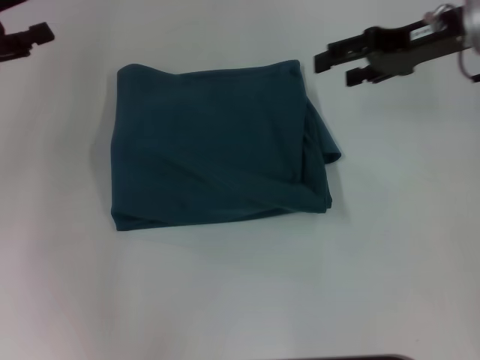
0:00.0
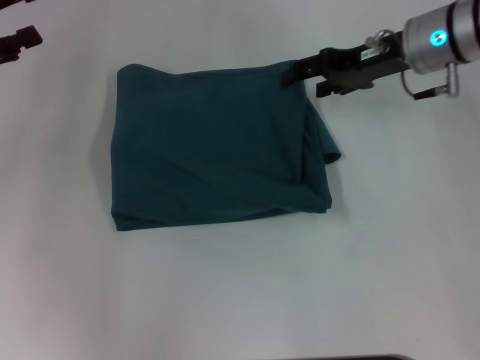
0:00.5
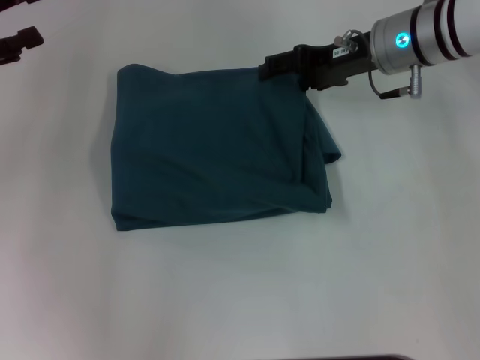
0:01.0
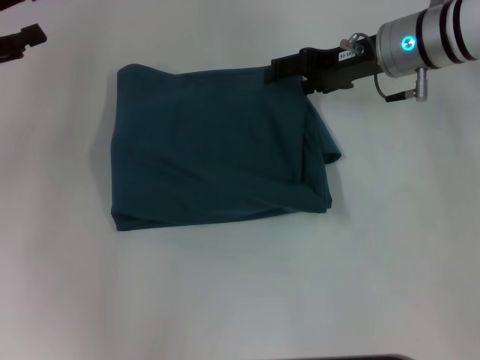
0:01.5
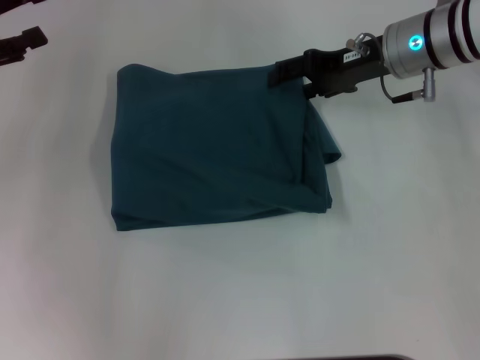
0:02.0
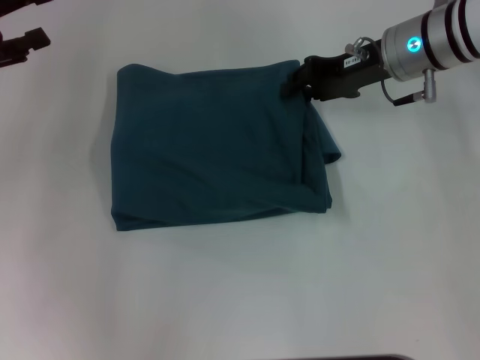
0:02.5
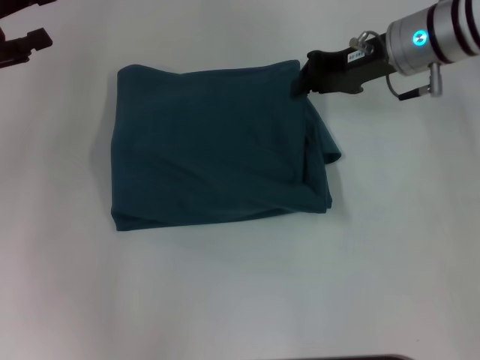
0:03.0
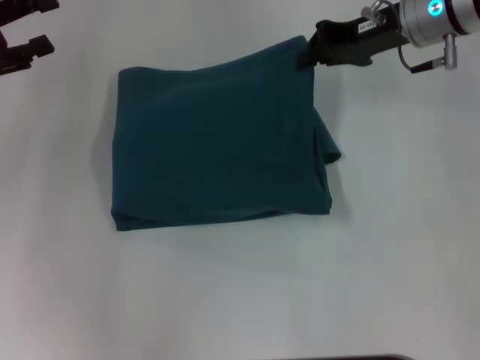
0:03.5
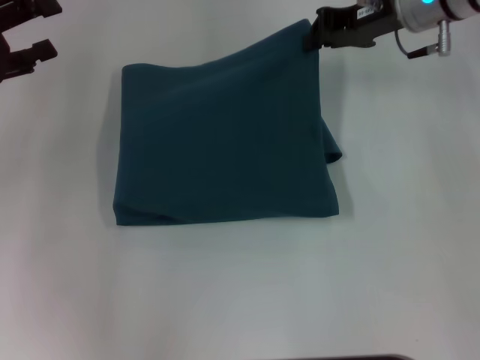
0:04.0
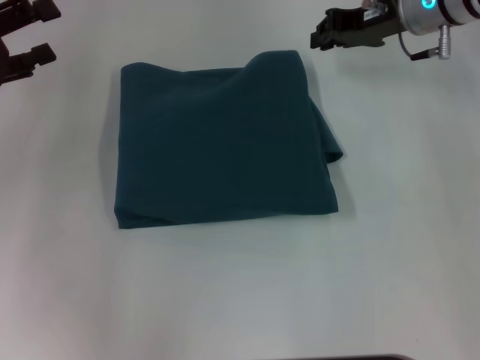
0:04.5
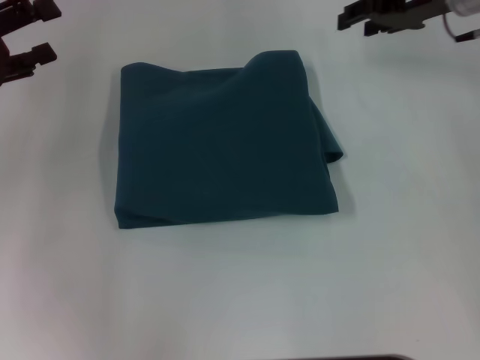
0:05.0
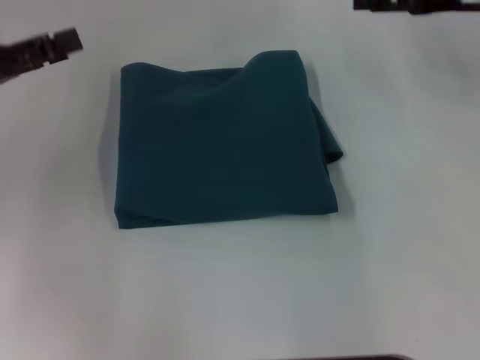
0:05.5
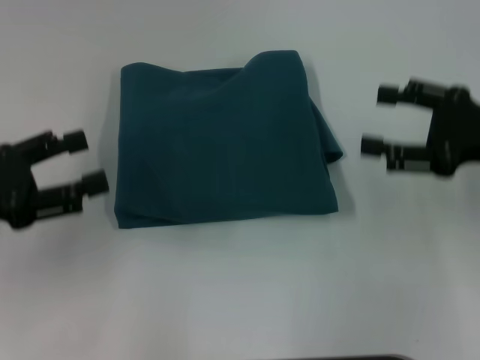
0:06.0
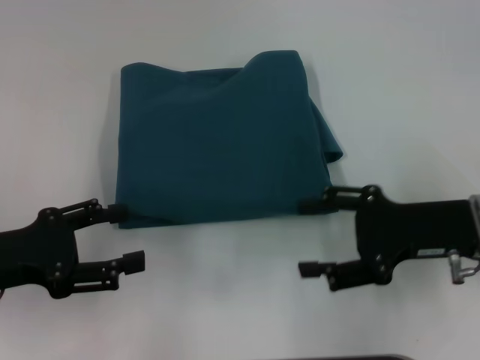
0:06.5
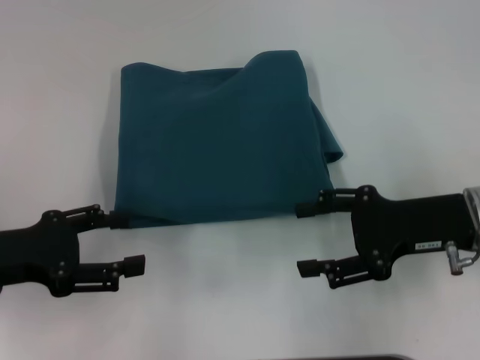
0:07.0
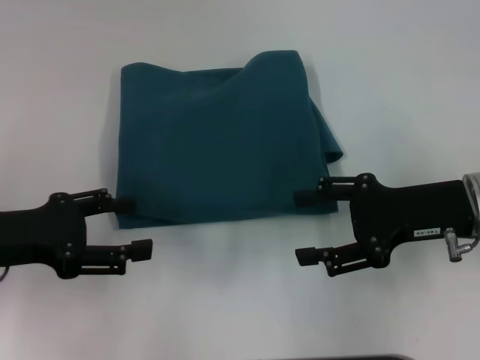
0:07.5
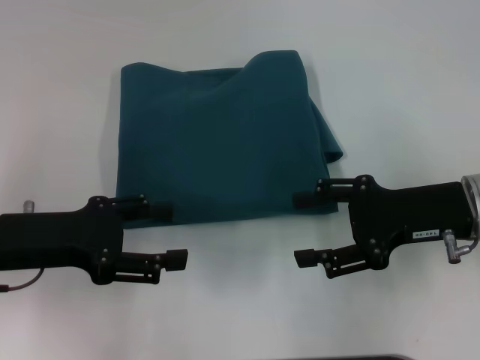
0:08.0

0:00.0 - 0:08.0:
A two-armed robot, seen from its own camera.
0:00.0 - 0:02.0: The right gripper heads to the left, covering about 5 cm.
0:02.0 - 0:04.0: The right gripper closes.
0:04.0 - 0:06.0: The left gripper shifts roughly 10 cm backward. Meanwhile the right gripper goes approximately 20 cm backward and to the right, and opens up.
0:06.0 - 0:08.0: The left gripper travels to the right by some 5 cm; the right gripper is displaced to the left by roughly 5 cm.

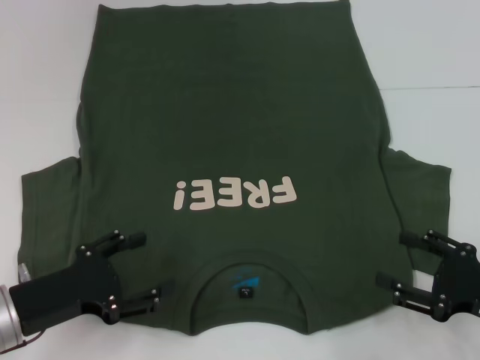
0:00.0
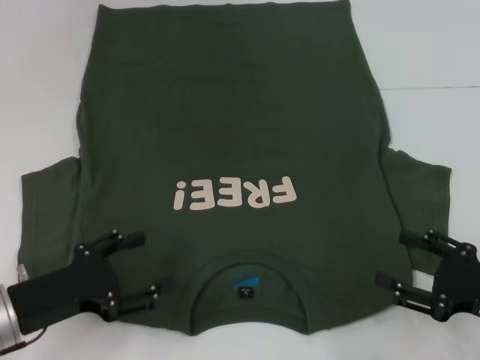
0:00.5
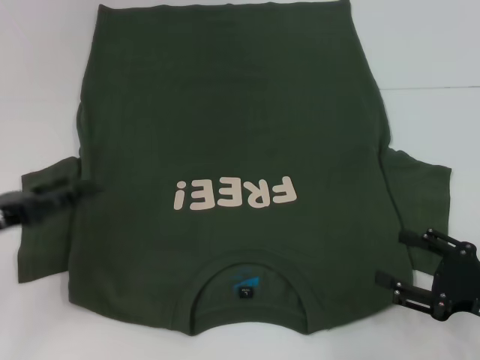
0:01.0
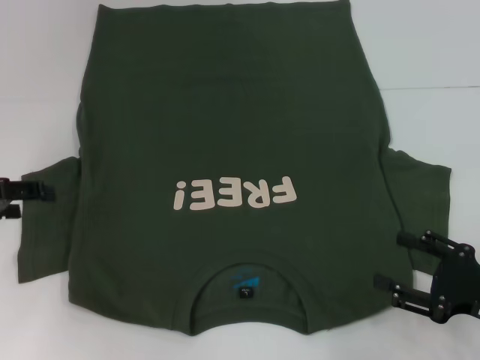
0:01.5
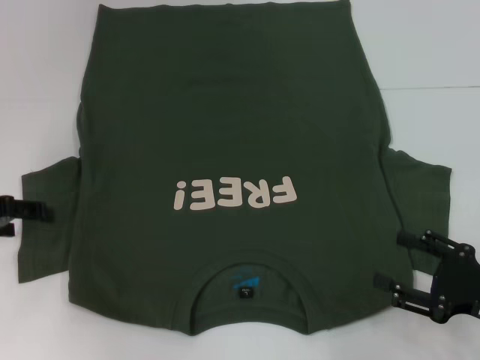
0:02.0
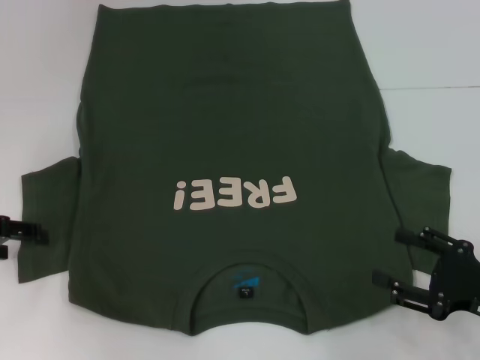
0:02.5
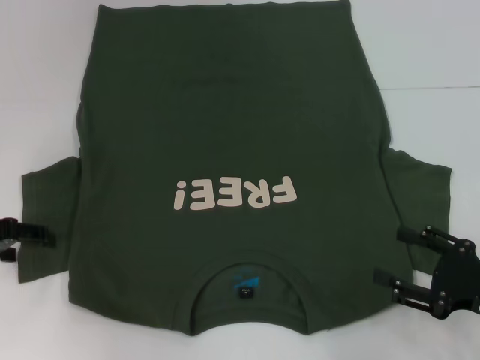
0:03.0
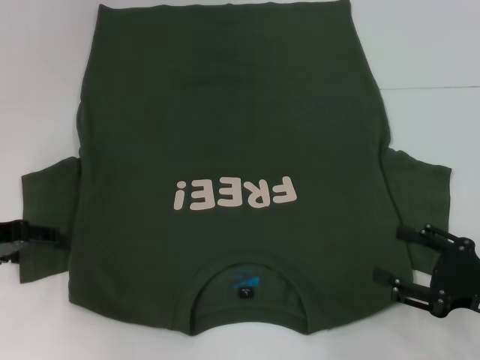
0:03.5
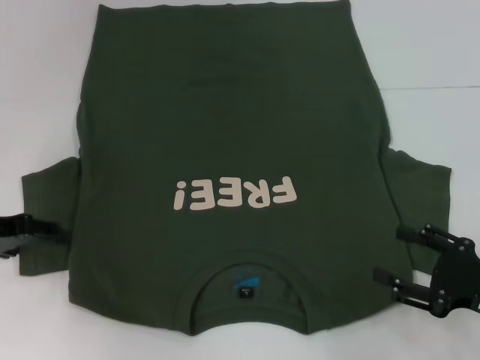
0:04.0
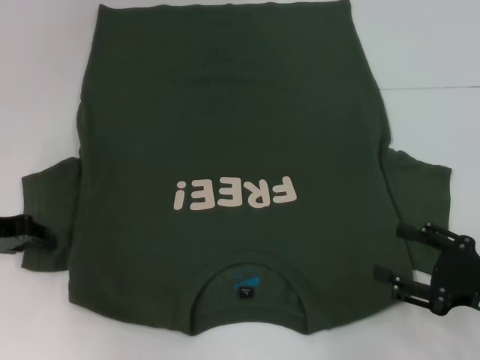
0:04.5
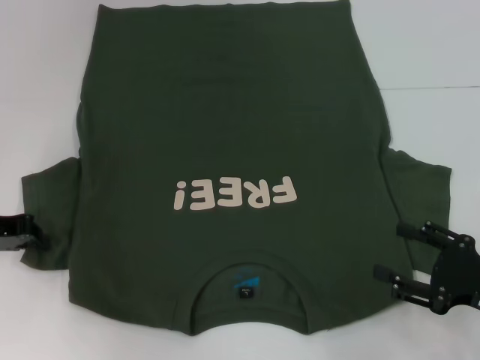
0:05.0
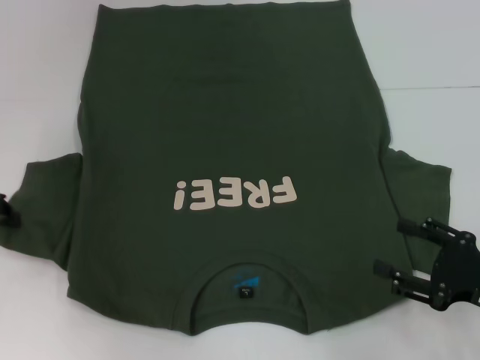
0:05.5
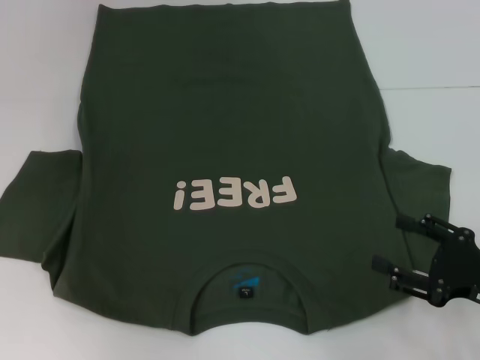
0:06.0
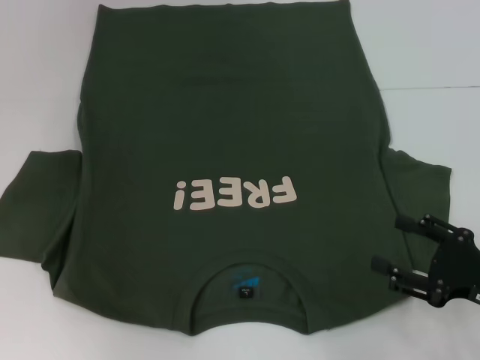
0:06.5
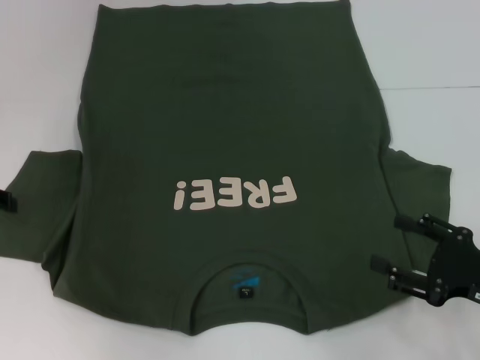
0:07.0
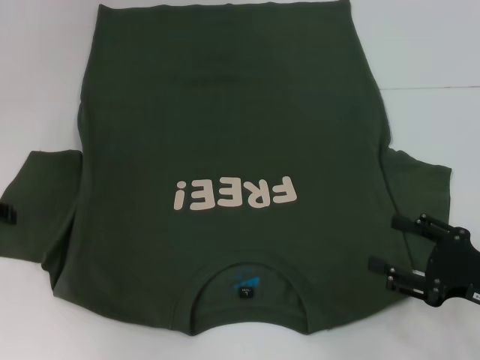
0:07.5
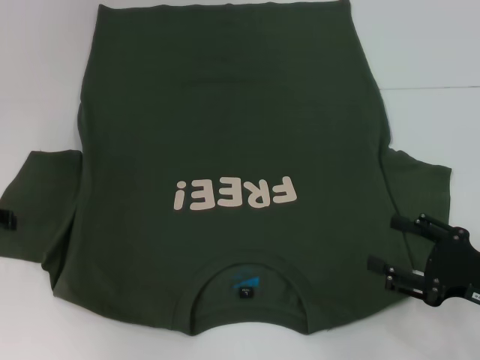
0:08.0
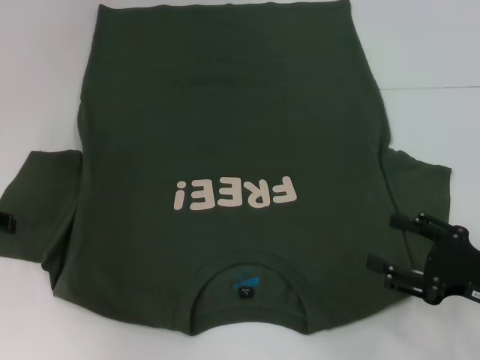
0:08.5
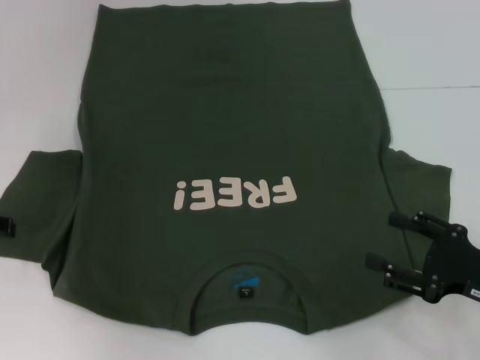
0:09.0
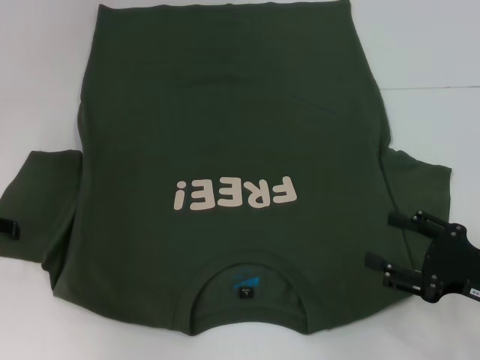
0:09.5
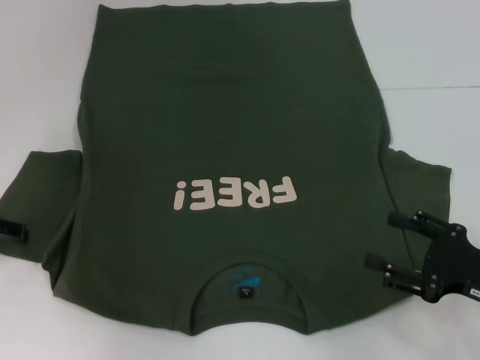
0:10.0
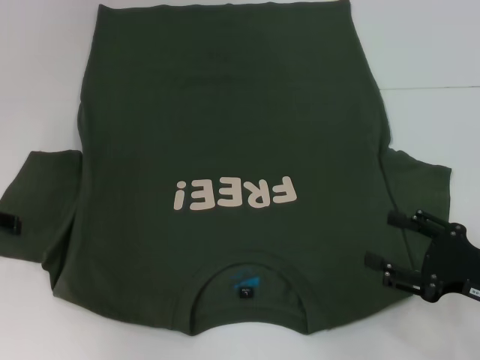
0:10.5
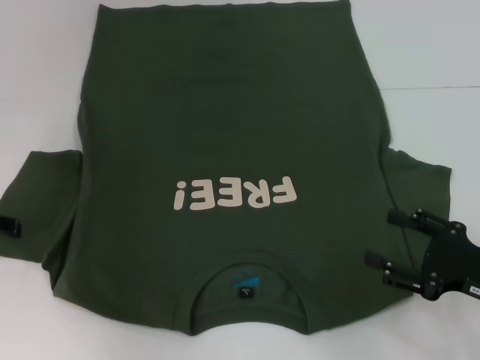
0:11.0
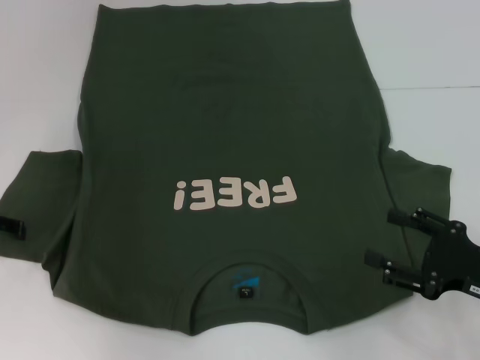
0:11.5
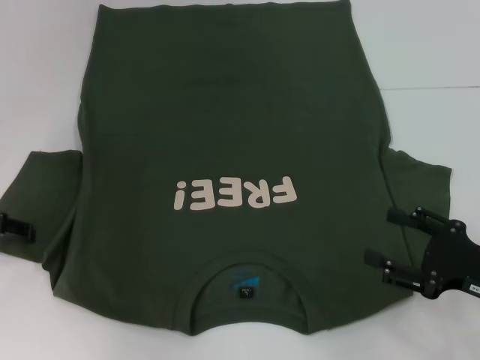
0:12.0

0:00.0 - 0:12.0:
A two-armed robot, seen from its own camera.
0:00.0 - 0:02.0: The left gripper heads forward, to the left and upward, covering some 15 cm.
0:02.0 - 0:04.0: The grippers move only a little.
0:04.0 - 0:06.0: The left gripper shifts by some 5 cm, and closes.
0:10.0 - 0:12.0: The two grippers keep their place.

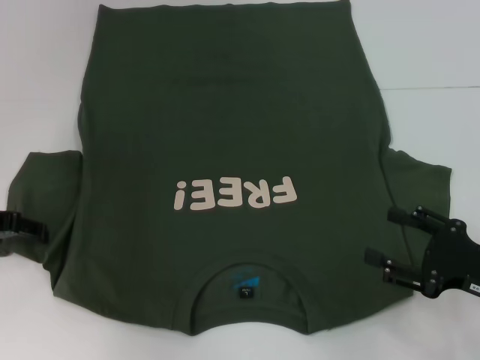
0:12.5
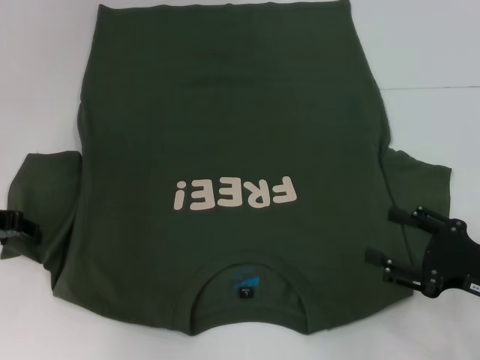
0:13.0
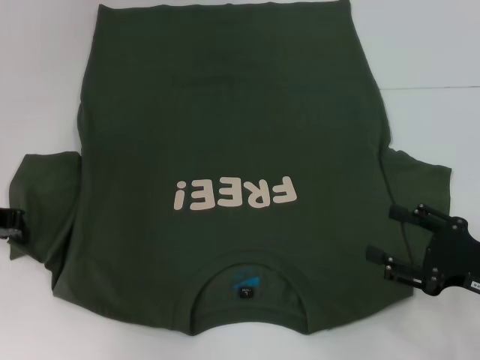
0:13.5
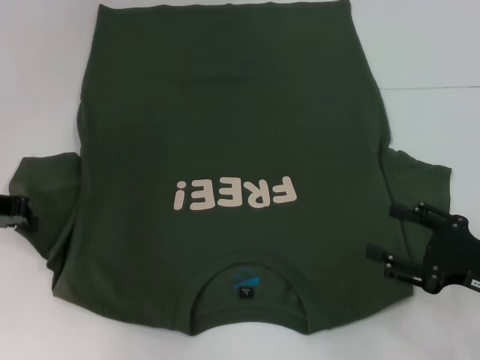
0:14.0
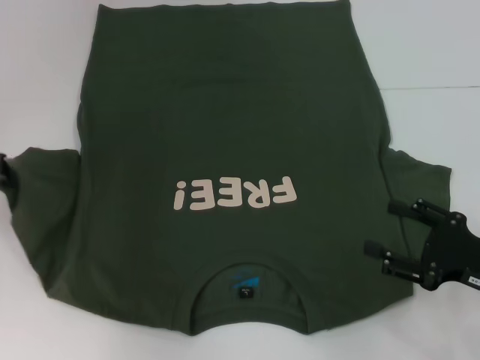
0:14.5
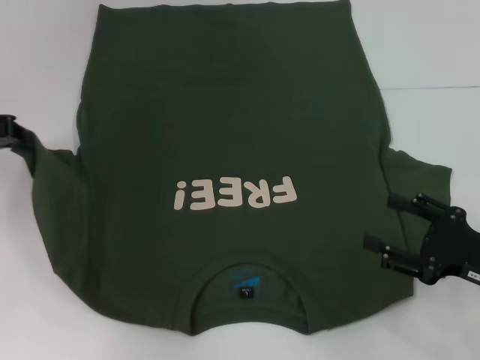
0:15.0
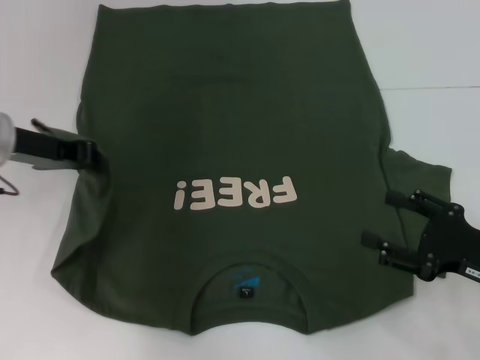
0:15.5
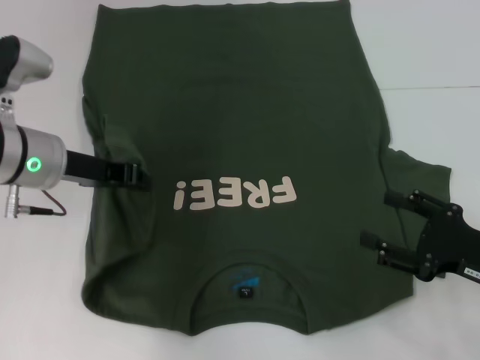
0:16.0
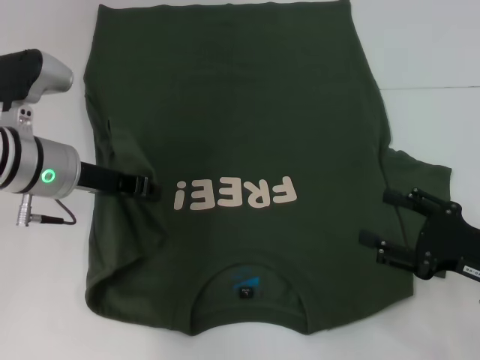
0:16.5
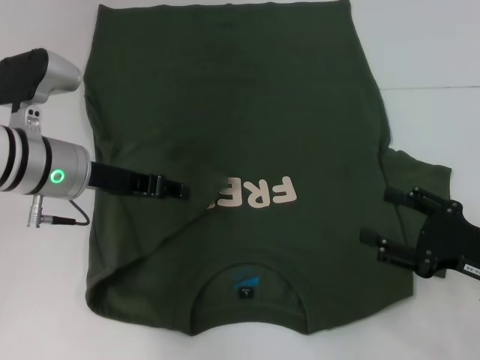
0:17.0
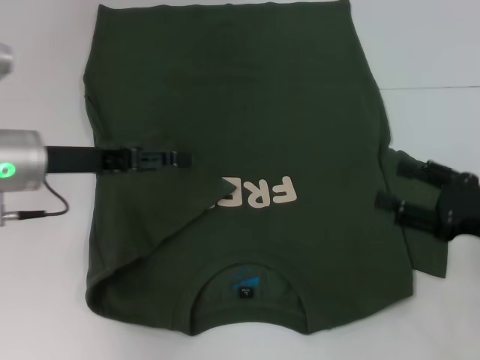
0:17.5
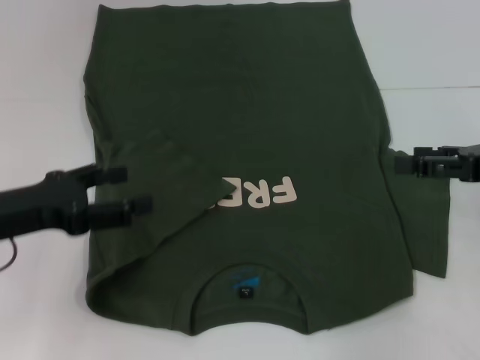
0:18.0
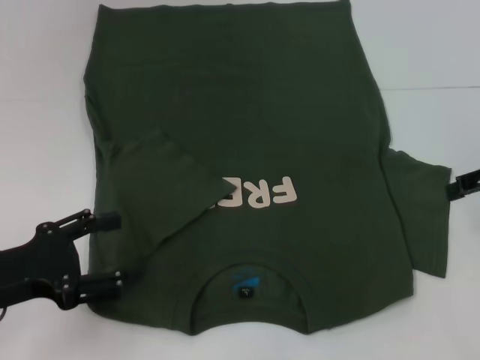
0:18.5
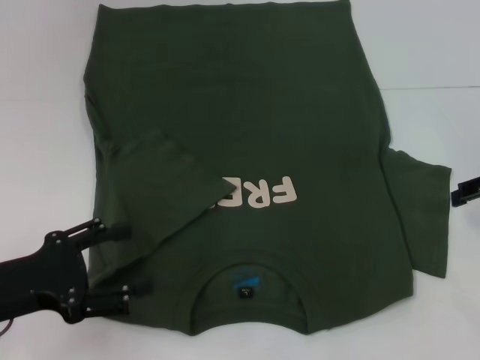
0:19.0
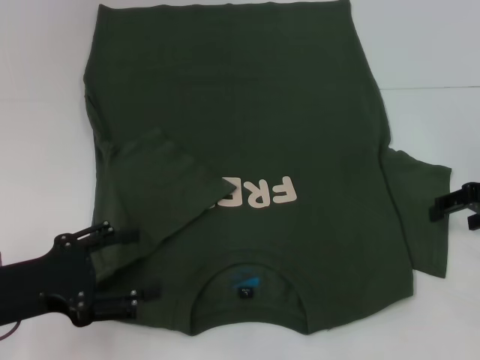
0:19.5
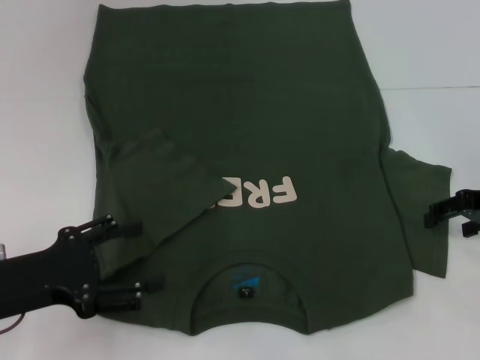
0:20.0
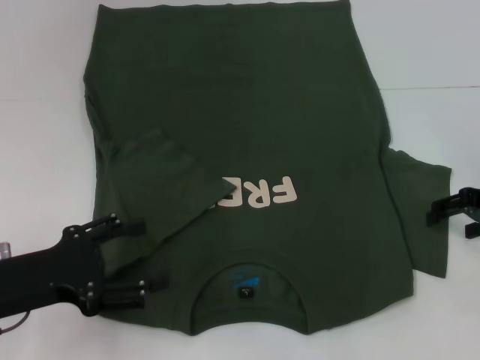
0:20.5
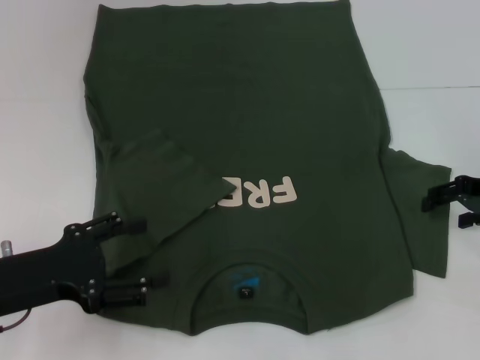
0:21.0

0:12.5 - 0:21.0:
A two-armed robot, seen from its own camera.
Step, 0:12.5 - 0:17.0: Fold the bottom left sleeve with your left hand.
0:12.5 - 0:14.5: The left gripper closes up.
0:14.5 - 0:16.5: The left gripper heads to the right, covering some 15 cm.
0:16.5 - 0:19.0: The right gripper moves upward and forward, some 15 cm, while the left gripper travels backward and to the left by roughly 15 cm, and opens.
0:19.0 - 0:21.0: There are only small adjustments of the grippers.
